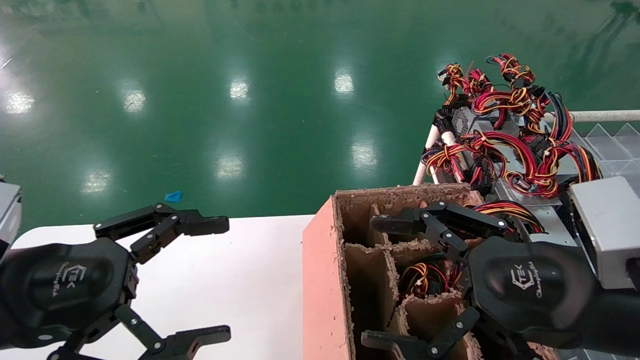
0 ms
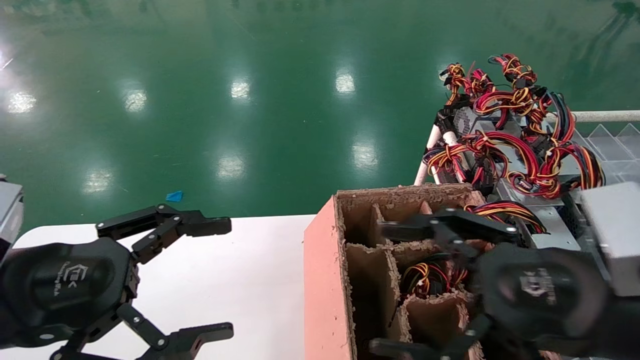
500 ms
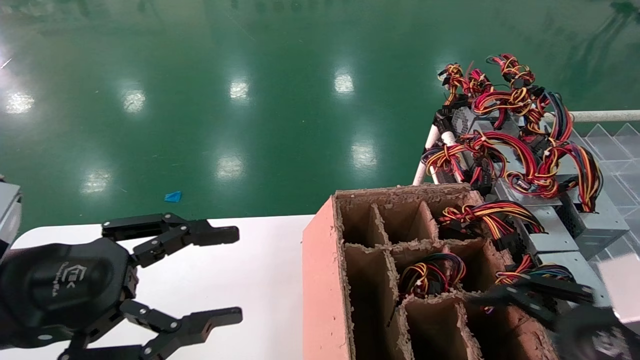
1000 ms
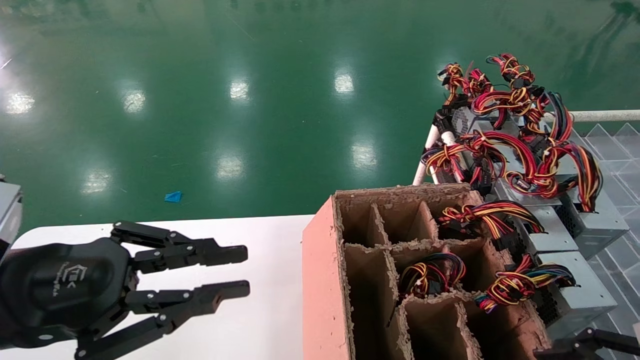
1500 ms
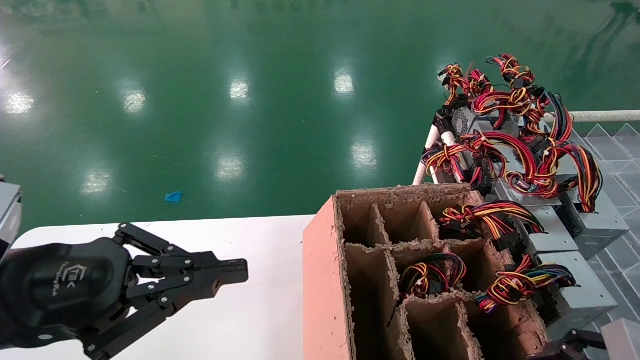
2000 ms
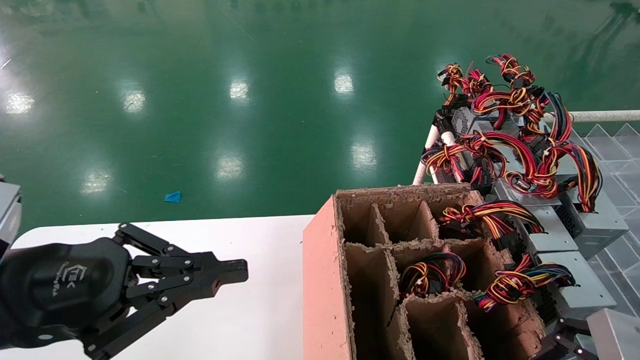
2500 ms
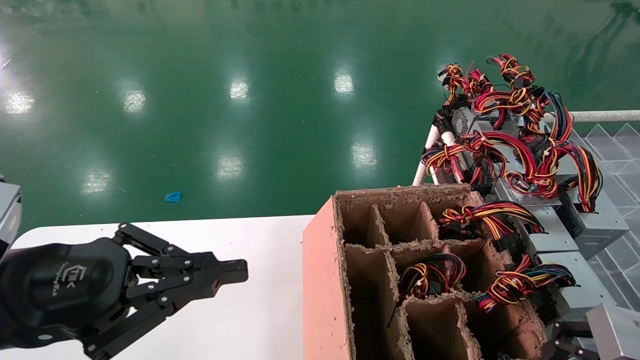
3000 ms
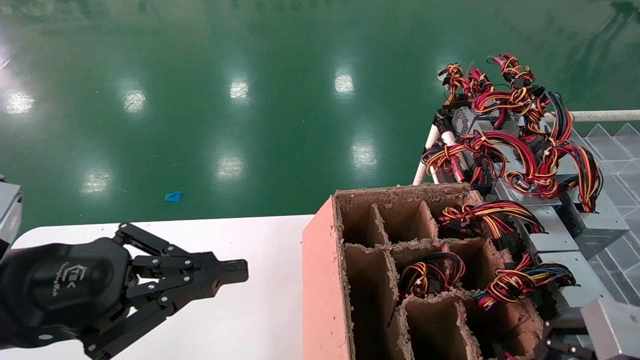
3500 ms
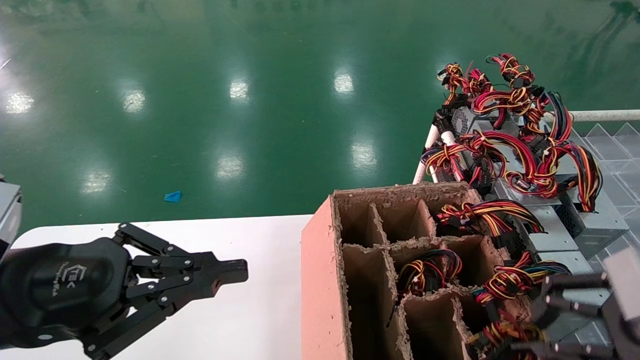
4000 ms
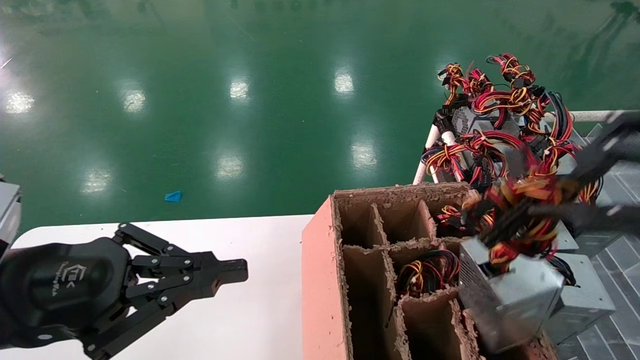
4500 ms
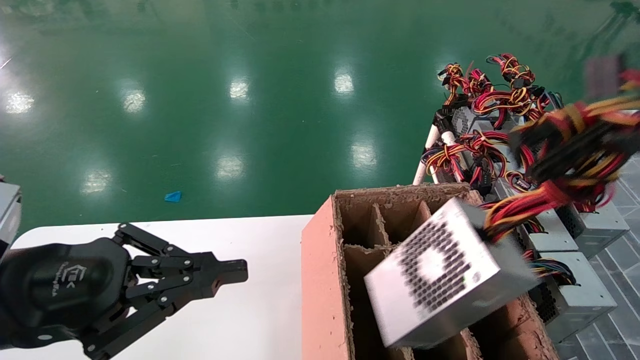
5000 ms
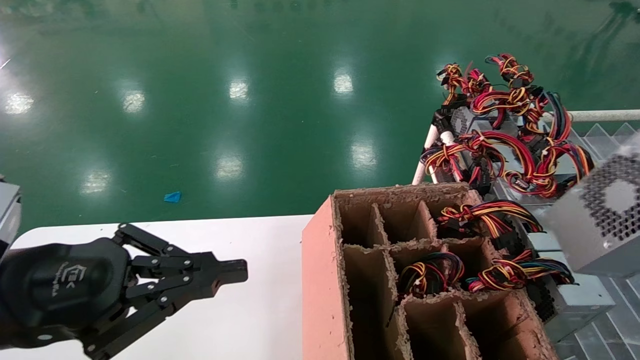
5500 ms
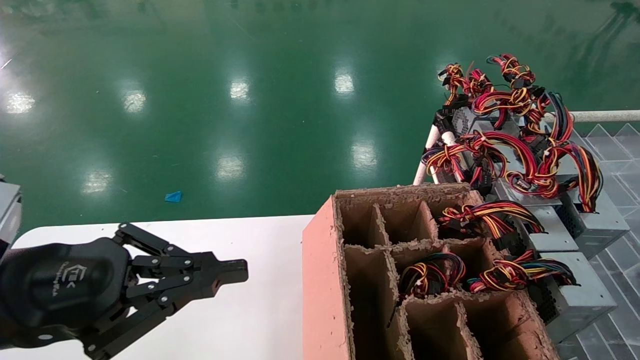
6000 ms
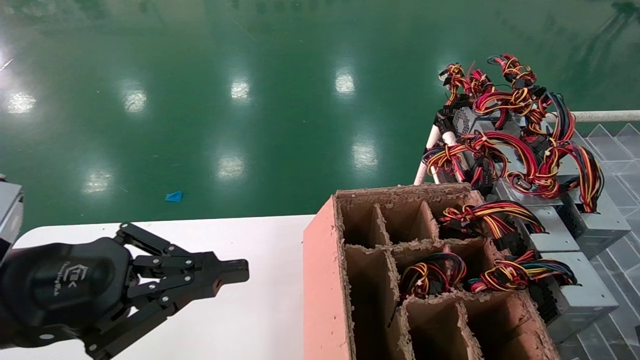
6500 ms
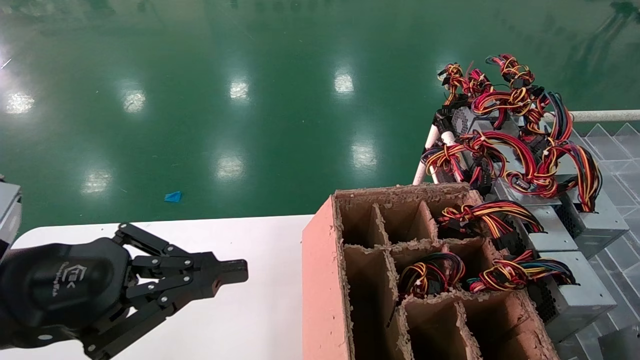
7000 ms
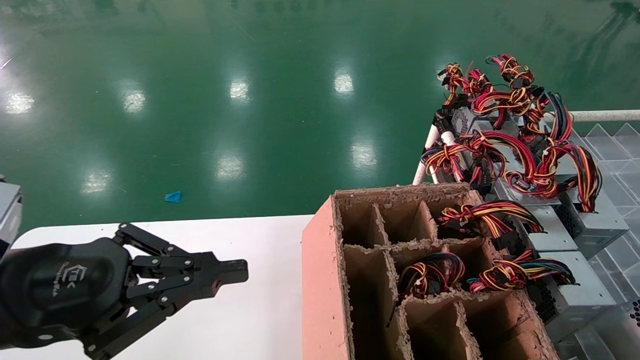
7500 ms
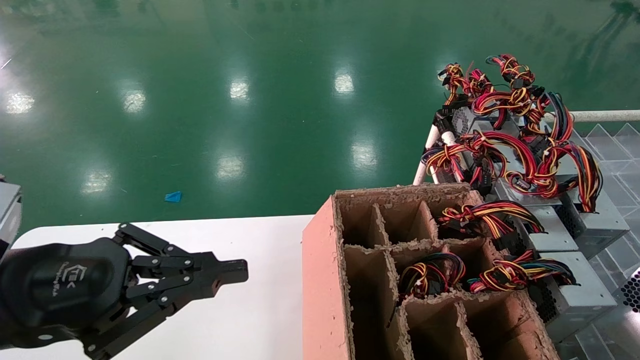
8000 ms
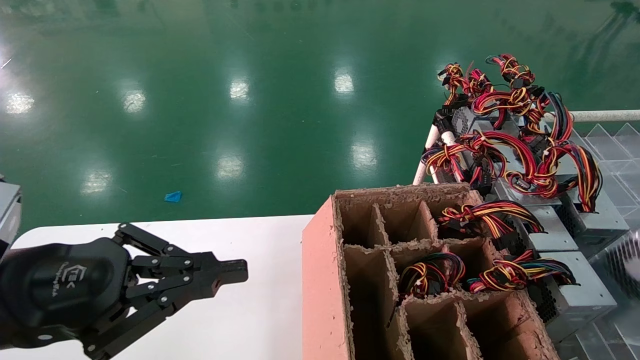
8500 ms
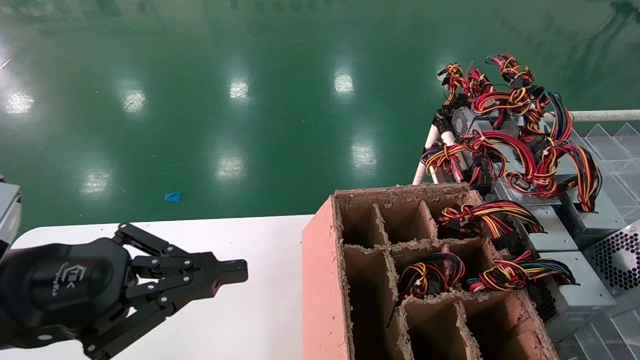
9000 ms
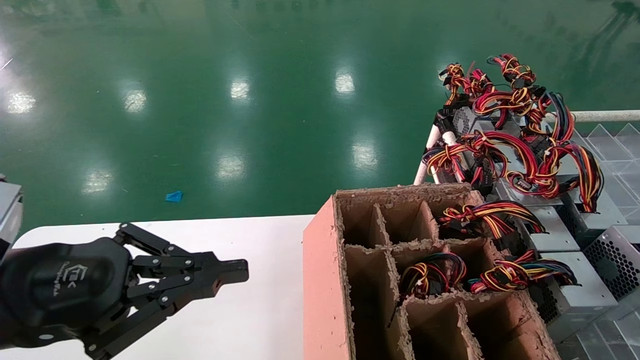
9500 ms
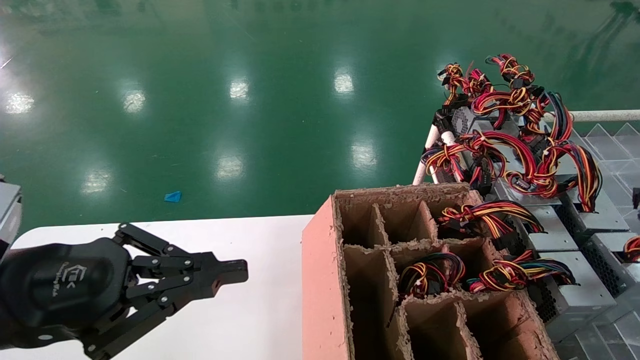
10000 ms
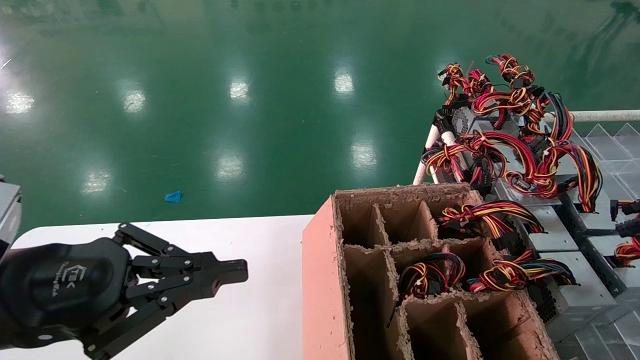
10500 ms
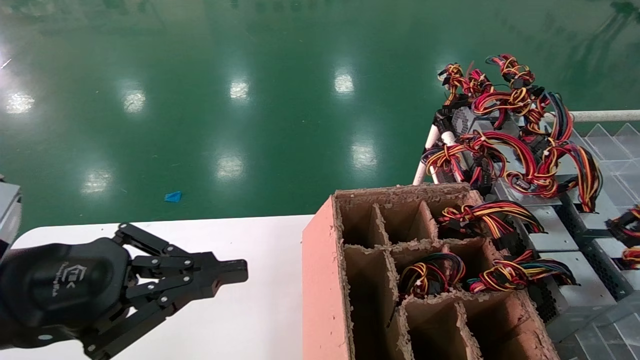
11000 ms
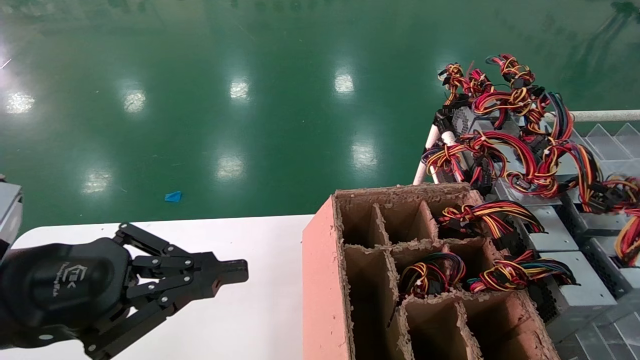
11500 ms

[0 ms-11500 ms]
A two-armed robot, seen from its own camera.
Step, 1000 ms to 3000 ms: Grab the main unit power supply from the containment box.
Step, 3500 ms to 10500 ms: Place the main unit power supply in the designated area.
0 ms to 2000 ms: The right gripper heads to the right and downward, covering some 15 cm; the left gripper closes its fingers.
2000 ms to 4000 ms: The right gripper moves upward, approximately 10 cm, and closes its fingers.
4000 ms to 6000 ms: The right gripper heads backward and to the right, covering approximately 25 cm.
6000 ms to 7500 ms: The right gripper goes some 5 cm forward.
7500 ms to 9500 ms: The right gripper shifts roughly 10 cm forward.
9500 ms to 11500 ms: The right gripper goes roughly 5 cm to the left, and opens its fingers.

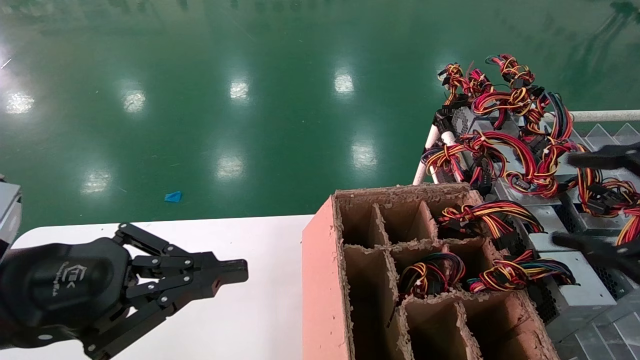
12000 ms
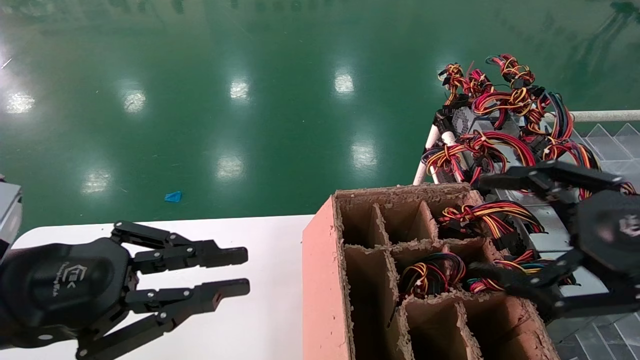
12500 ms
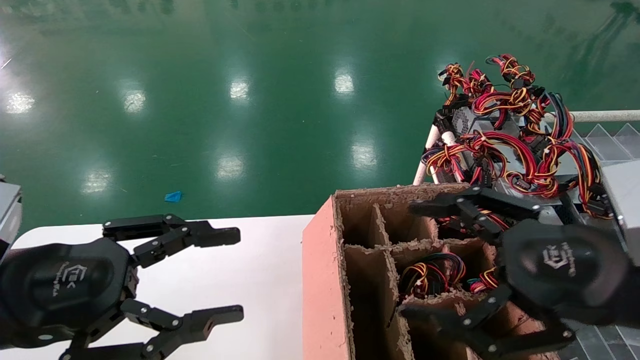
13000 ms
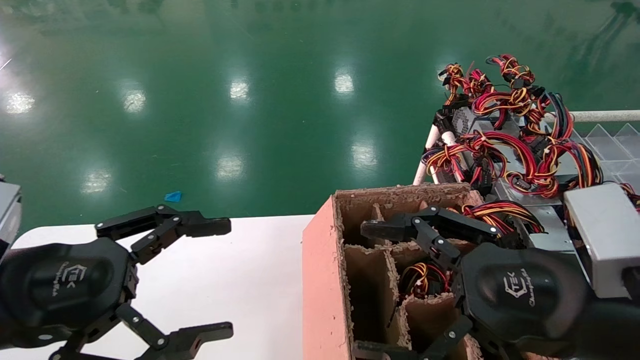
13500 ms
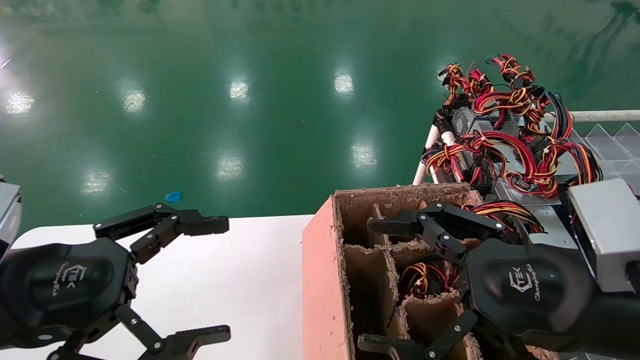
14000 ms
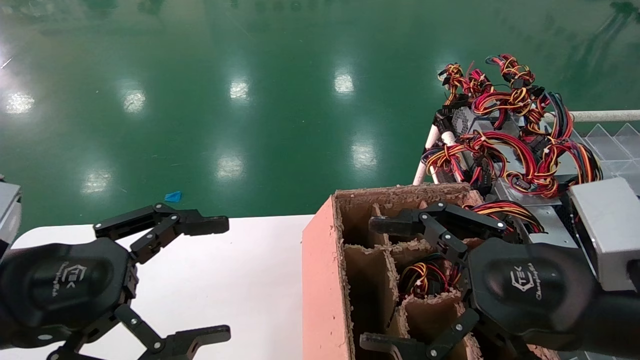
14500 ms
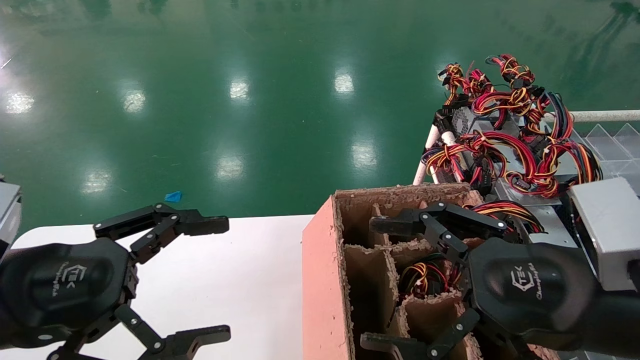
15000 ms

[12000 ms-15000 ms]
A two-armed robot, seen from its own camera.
12000 ms to 13500 ms: The left gripper opens its fingers. The right gripper heads to the left and downward, covering approximately 15 cm.
13500 ms to 15000 ms: Neither gripper changes place.

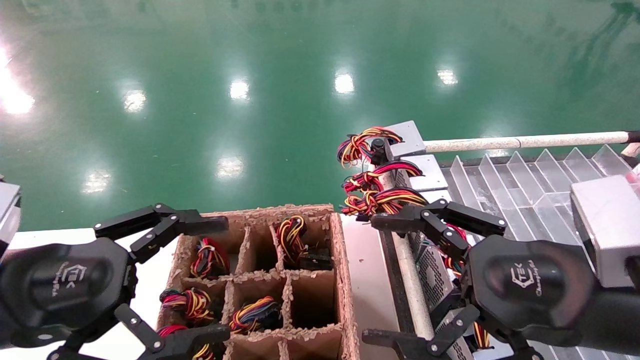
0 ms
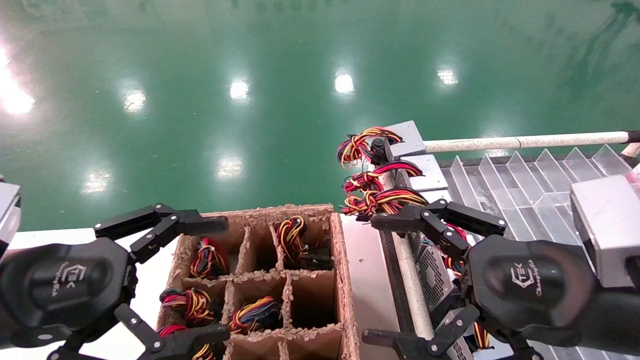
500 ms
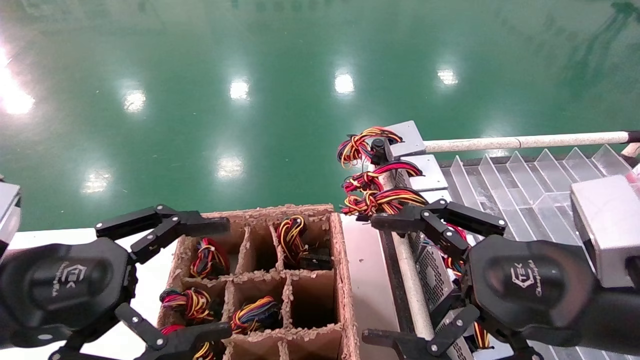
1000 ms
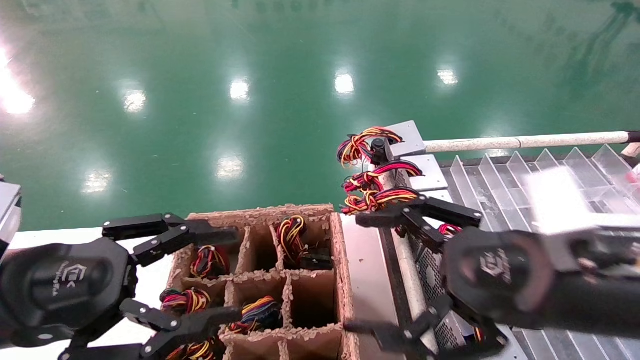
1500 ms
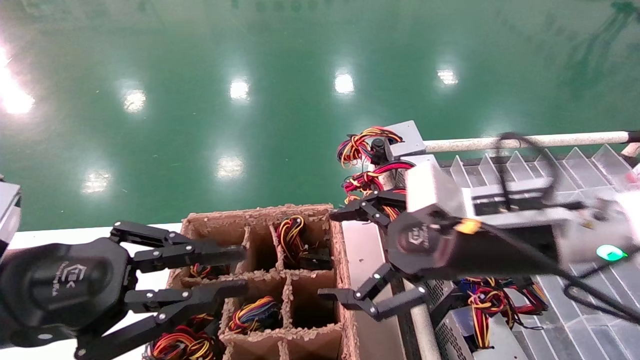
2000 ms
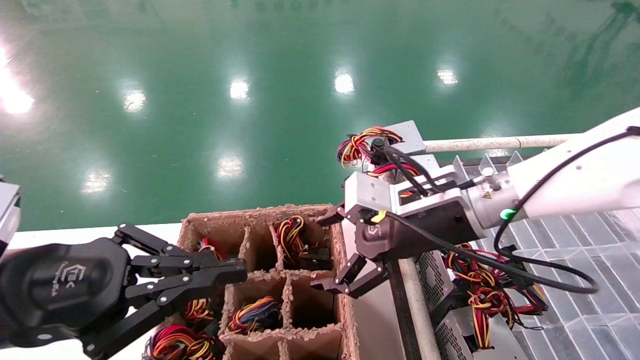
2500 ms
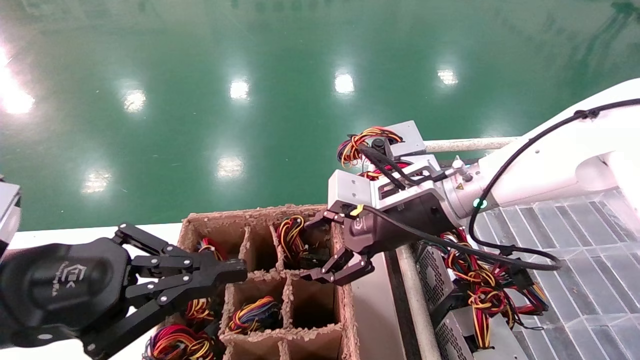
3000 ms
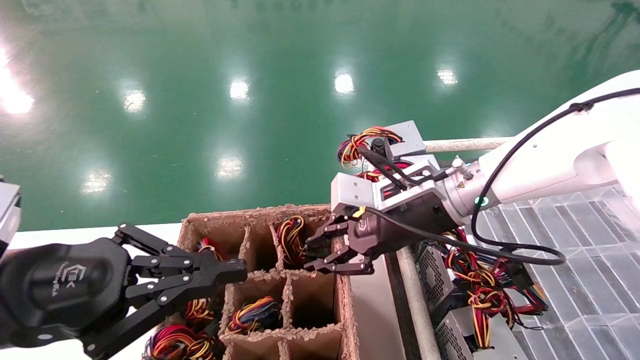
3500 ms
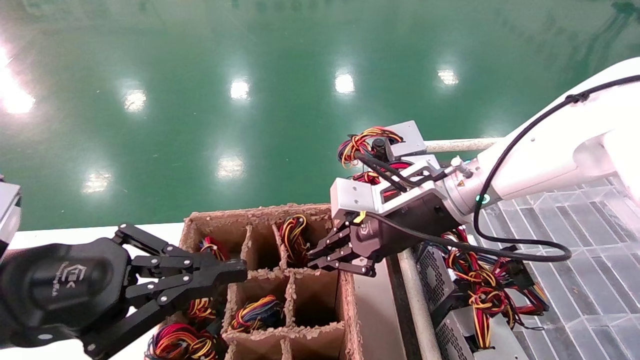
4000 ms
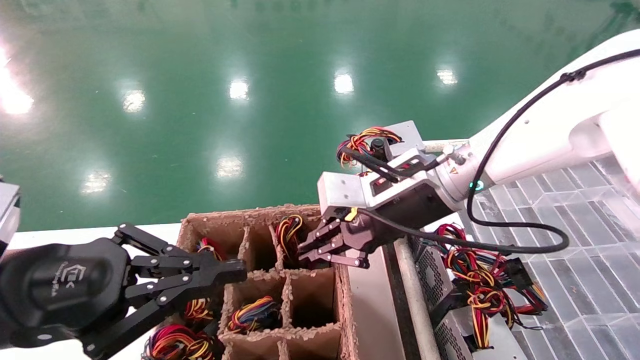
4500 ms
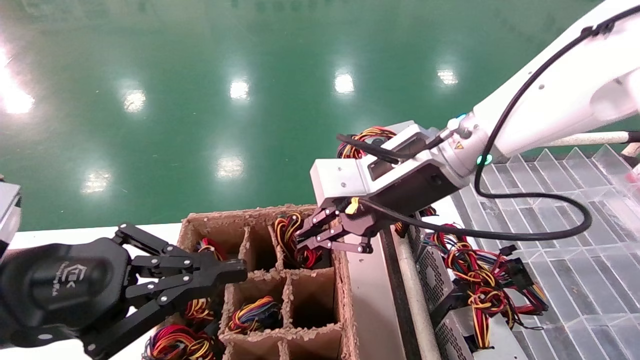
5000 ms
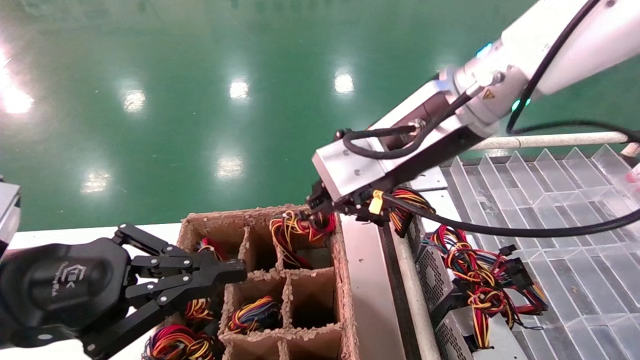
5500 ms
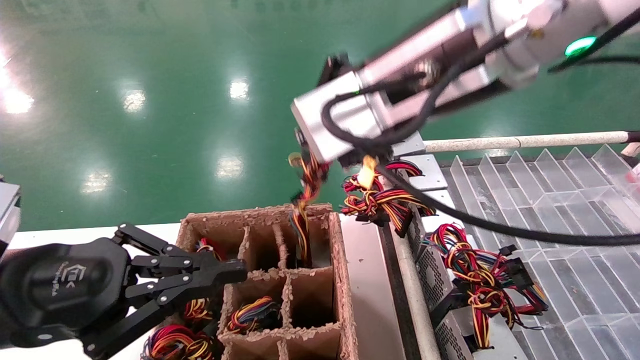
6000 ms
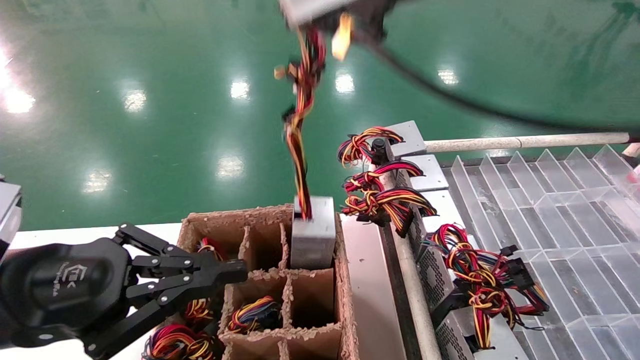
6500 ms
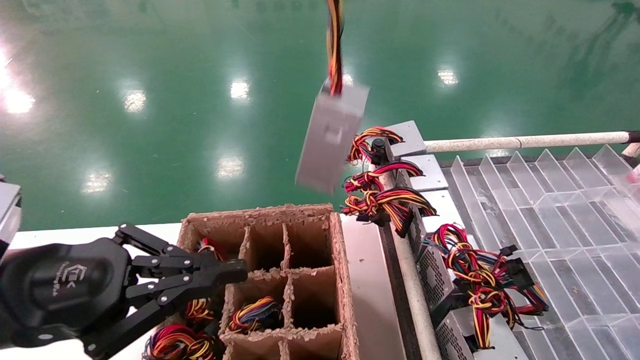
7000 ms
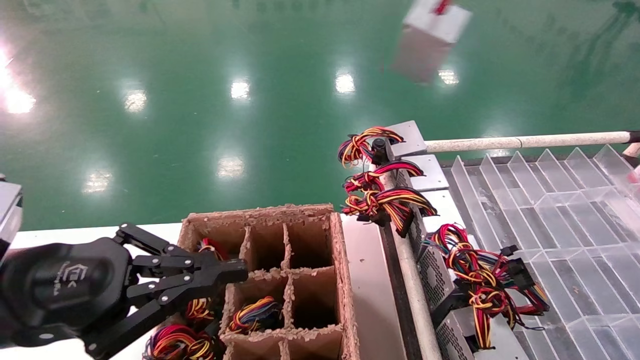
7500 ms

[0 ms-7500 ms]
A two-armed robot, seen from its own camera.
Step, 1500 ms to 3500 ms: Grab the main unit power supply from the containment box.
0 ms to 2000 ms: The left gripper closes its fingers, while the right gripper goes approximately 10 cm forward and to the left.
2000 ms to 4000 ms: The right gripper moves forward and to the left, approximately 10 cm, and closes.
4000 ms to 5500 ms: The right gripper travels upward and backward by some 15 cm.
5500 ms to 7500 ms: The right gripper heads upward, backward and to the right, covering approximately 30 cm.
